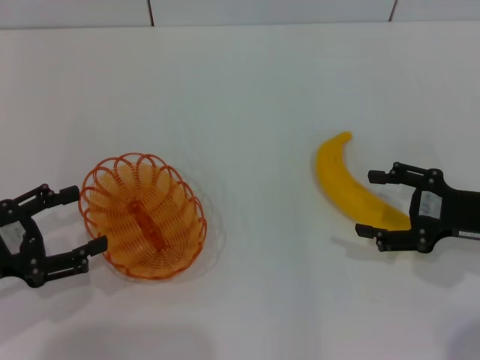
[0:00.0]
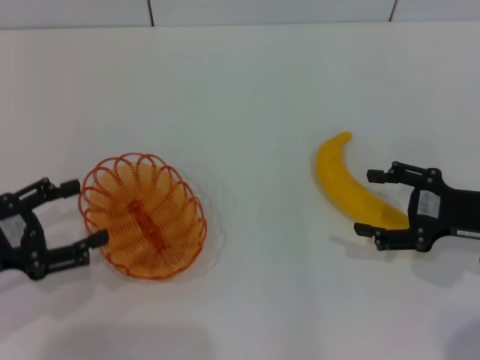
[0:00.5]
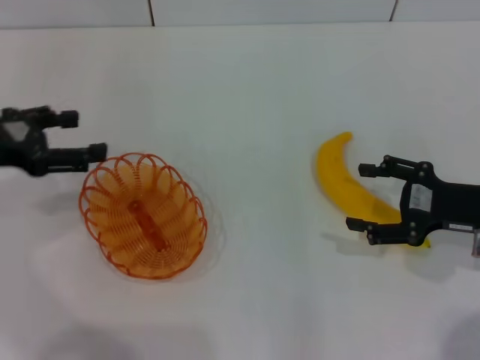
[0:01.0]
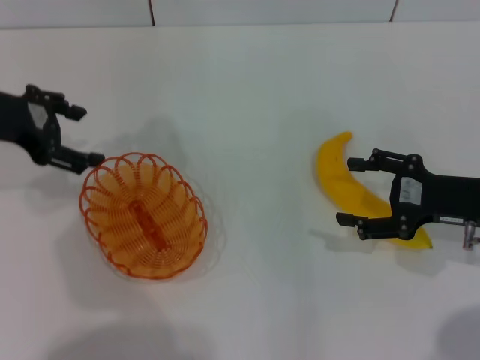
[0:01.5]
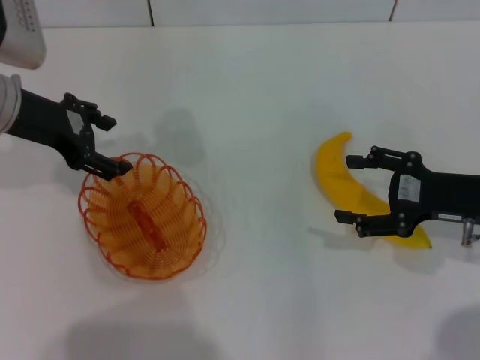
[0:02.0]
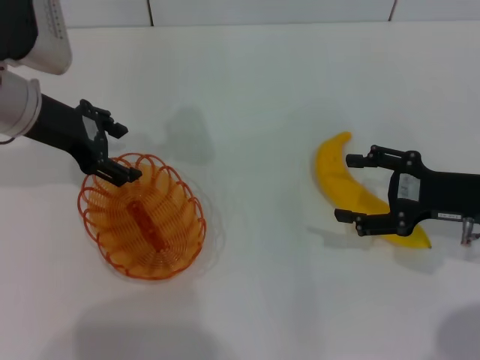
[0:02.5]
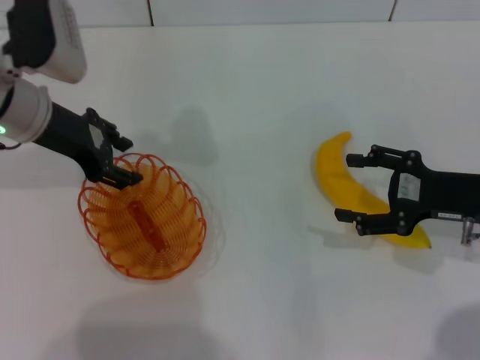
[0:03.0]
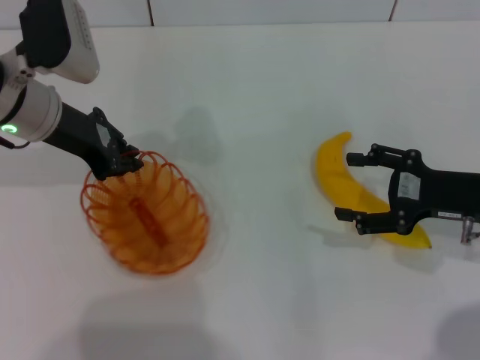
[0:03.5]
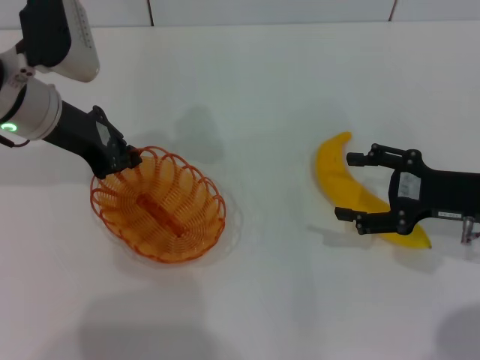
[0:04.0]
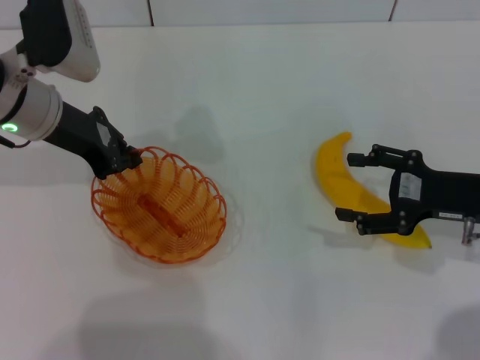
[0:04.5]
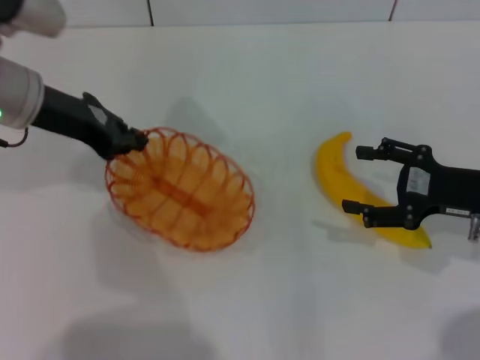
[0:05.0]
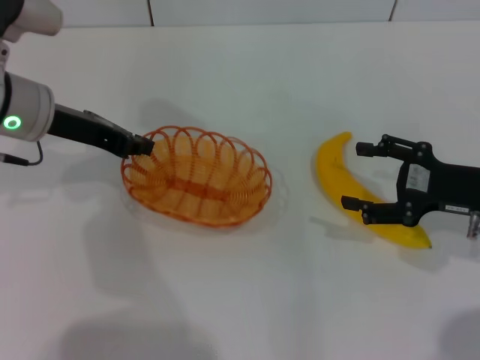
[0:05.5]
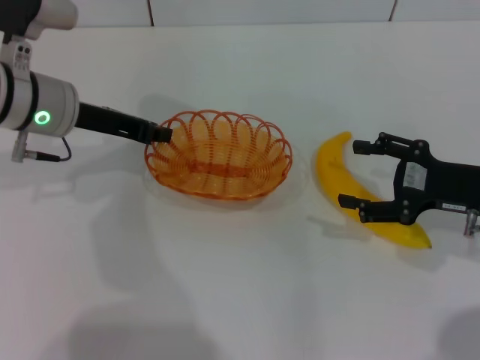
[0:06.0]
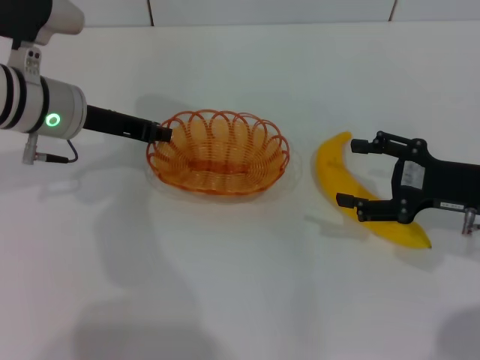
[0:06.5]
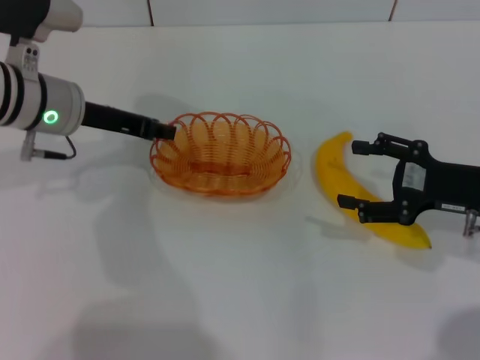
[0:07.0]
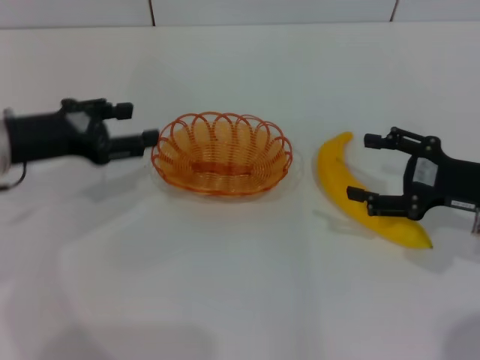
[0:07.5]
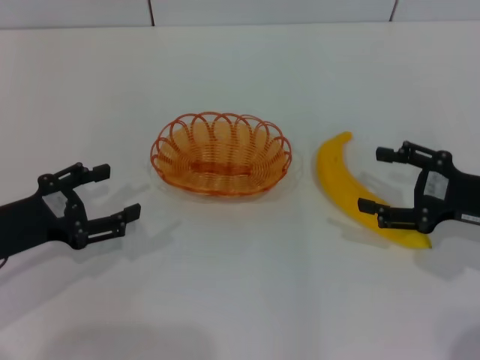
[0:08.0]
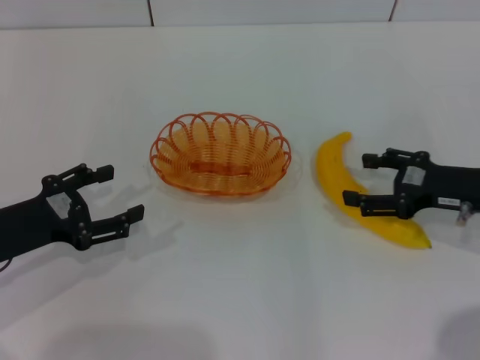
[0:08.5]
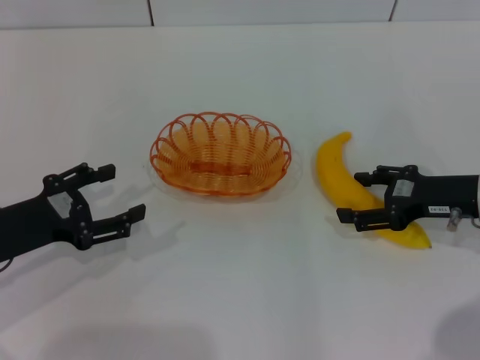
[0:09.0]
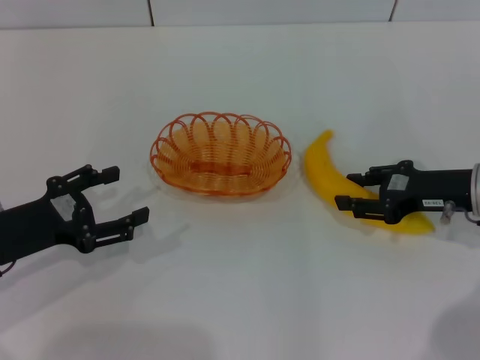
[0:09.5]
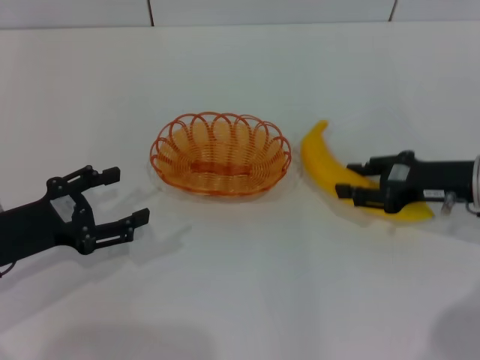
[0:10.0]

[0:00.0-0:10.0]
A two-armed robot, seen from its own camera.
Step, 0:00.0 to 0:04.5: Pick up the basket with the left gripper.
Step, 0:05.0 to 0:07.5: Place the basket in the center of view with the left gripper.
Step, 0:08.0 to 0:10.0: Pick up the banana with the right gripper.
0:00.0 to 0:02.0: The left gripper moves forward, upward and to the right, approximately 20 cm.
0:02.0 to 0:04.0: The left gripper closes its fingers.
0:06.0 to 0:08.0: The left gripper heads backward, to the left and downward, covering about 20 cm, and opens up.
0:08.0 to 0:10.0: The right gripper goes roughly 5 cm forward, and closes its fingers.

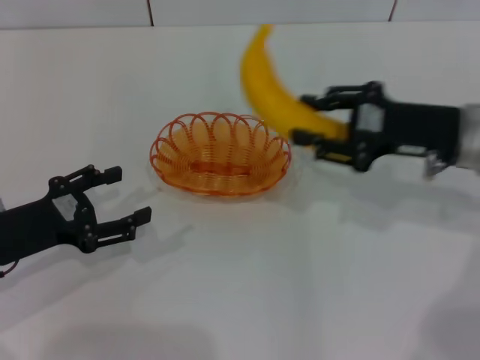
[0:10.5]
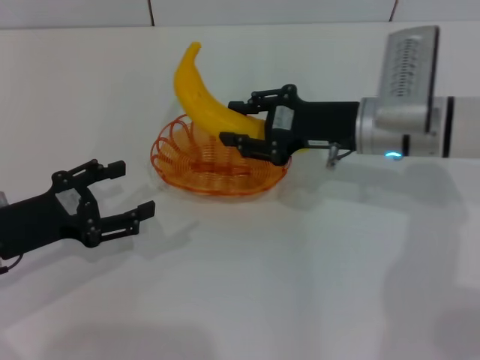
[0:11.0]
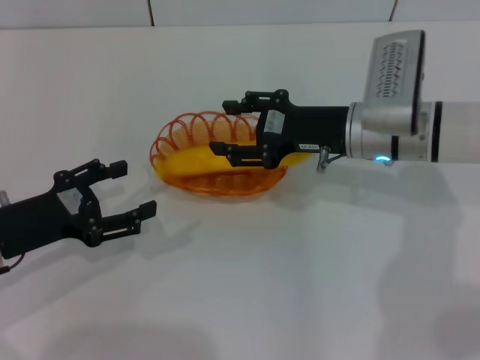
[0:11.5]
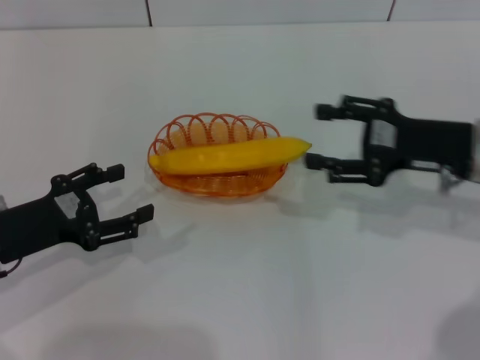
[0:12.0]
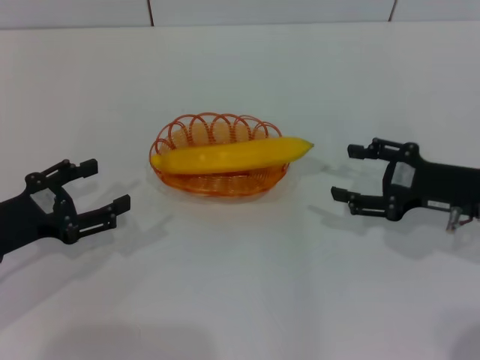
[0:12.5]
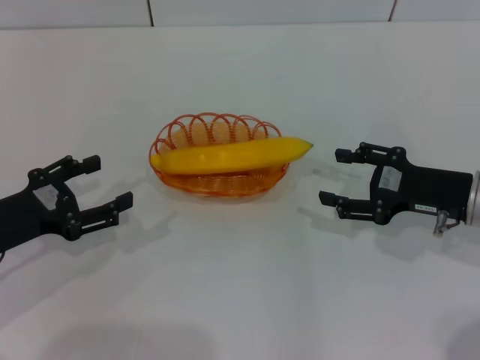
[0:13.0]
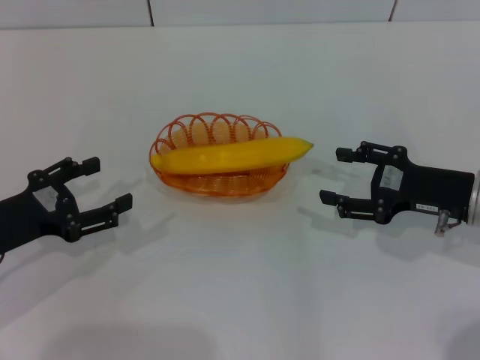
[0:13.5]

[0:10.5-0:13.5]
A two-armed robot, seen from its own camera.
Step, 0:10.5 to 0:11.5: Place the banana into the basket with the right gripper.
0:10.5 to 0:12.0: The right gripper reaches approximately 10 cm to the left, then returns, and opens up.
0:12.0 to 0:13.5: The right gripper shifts by roughly 5 cm.
